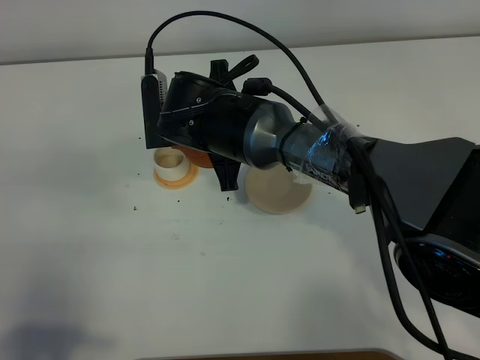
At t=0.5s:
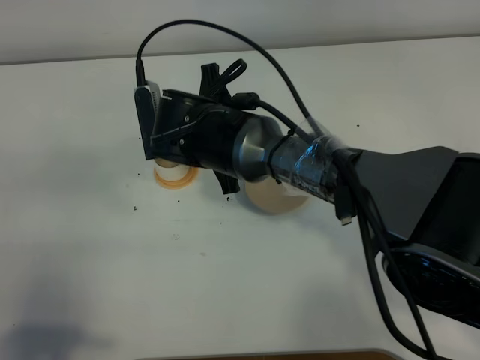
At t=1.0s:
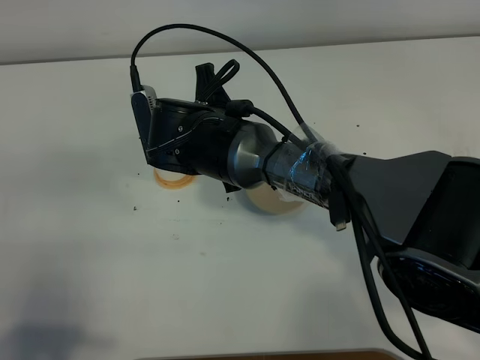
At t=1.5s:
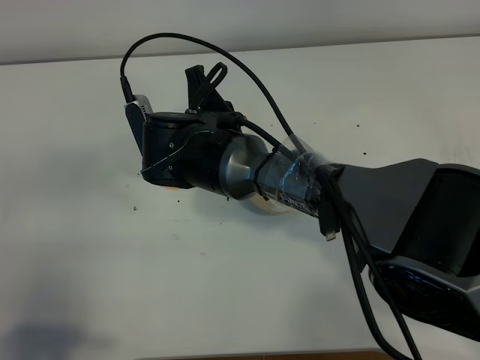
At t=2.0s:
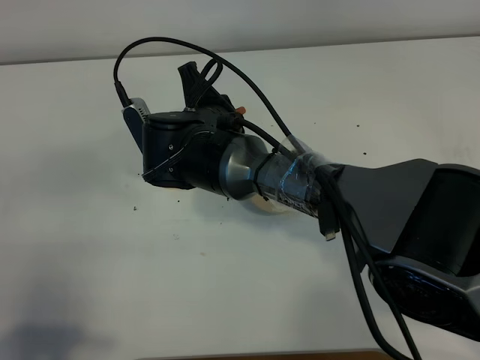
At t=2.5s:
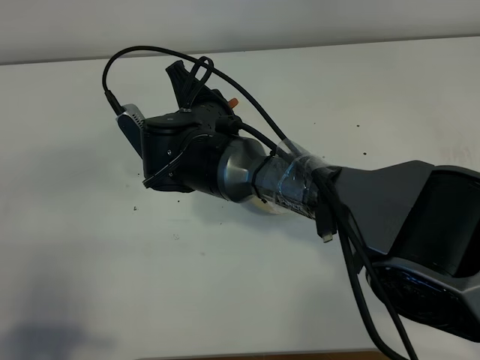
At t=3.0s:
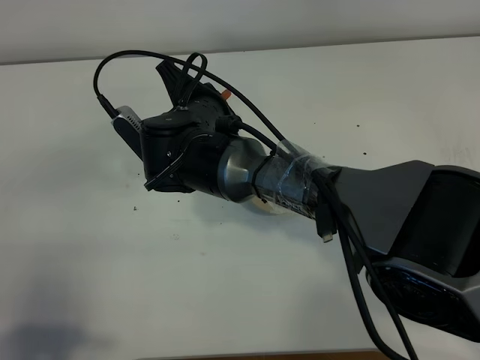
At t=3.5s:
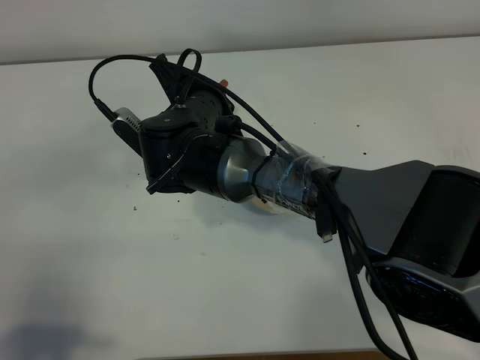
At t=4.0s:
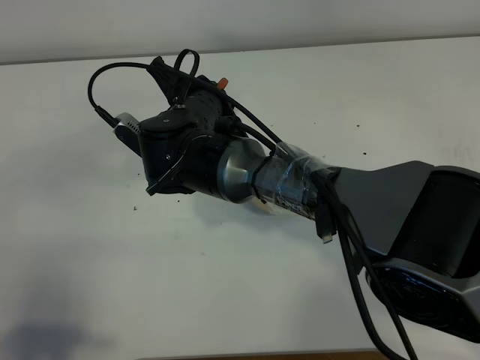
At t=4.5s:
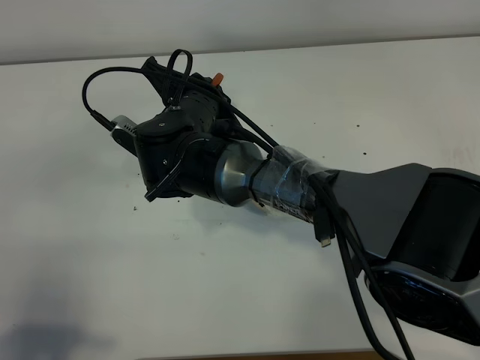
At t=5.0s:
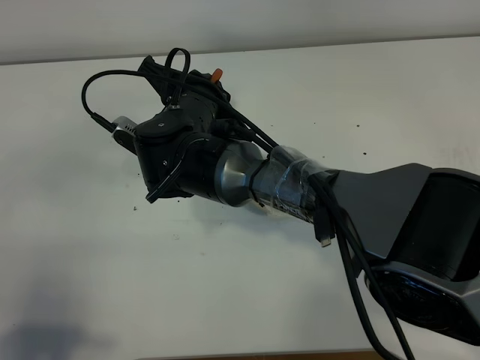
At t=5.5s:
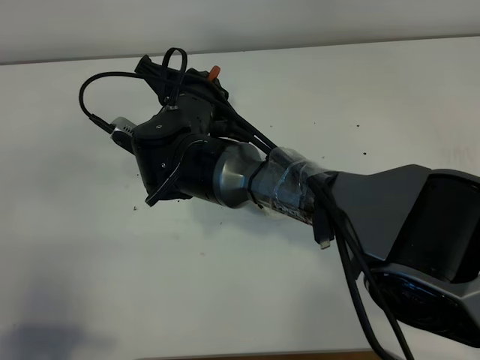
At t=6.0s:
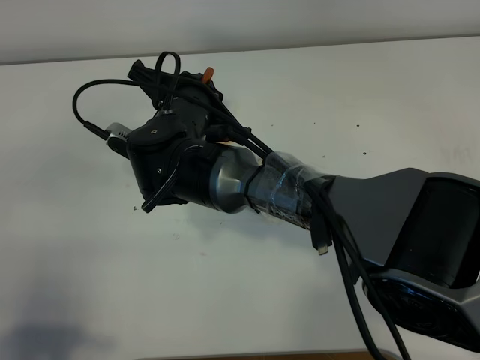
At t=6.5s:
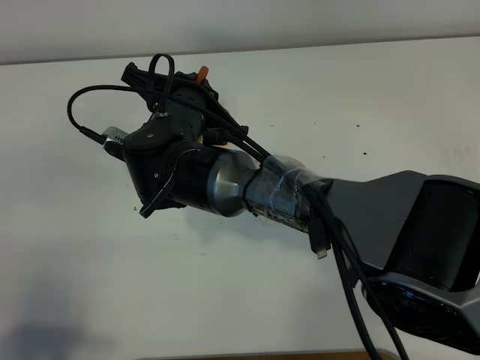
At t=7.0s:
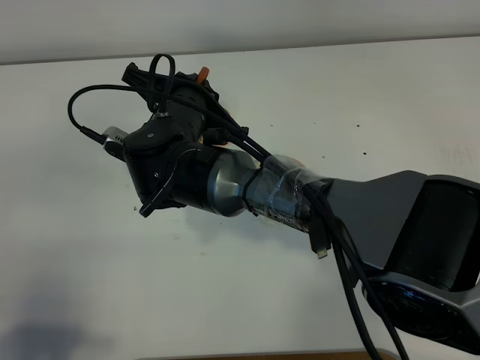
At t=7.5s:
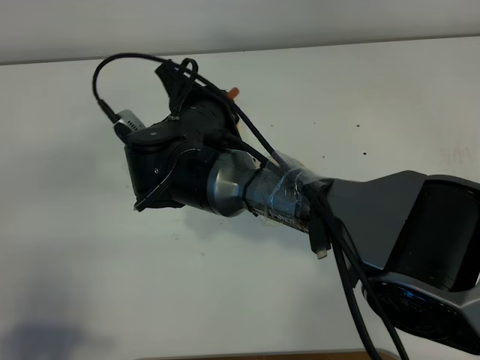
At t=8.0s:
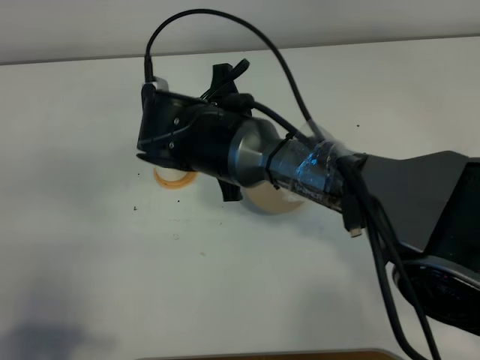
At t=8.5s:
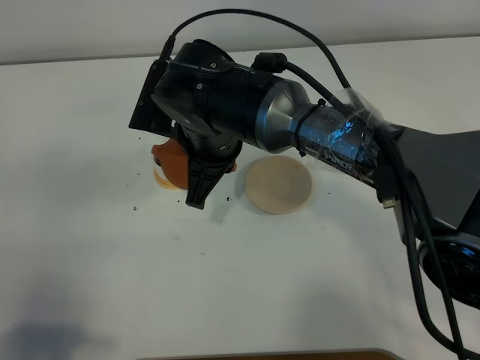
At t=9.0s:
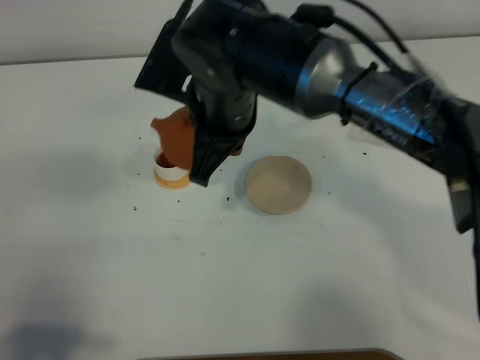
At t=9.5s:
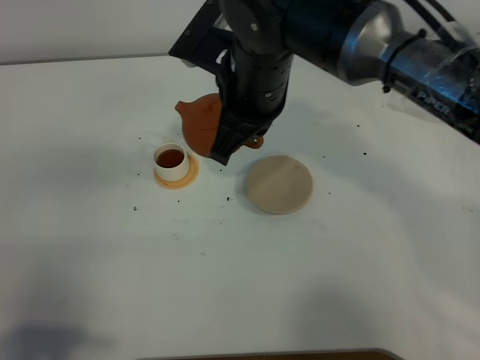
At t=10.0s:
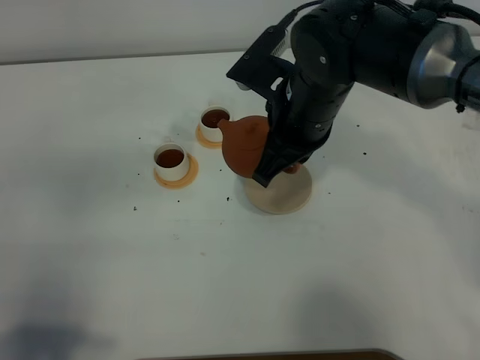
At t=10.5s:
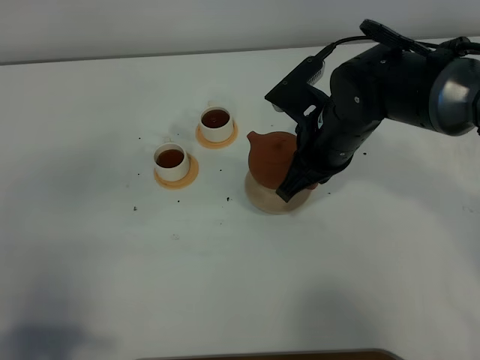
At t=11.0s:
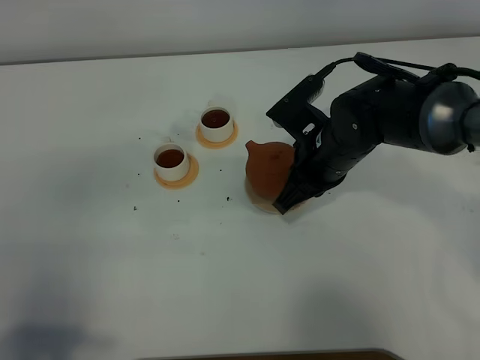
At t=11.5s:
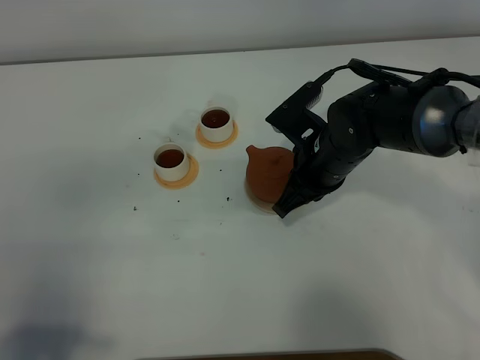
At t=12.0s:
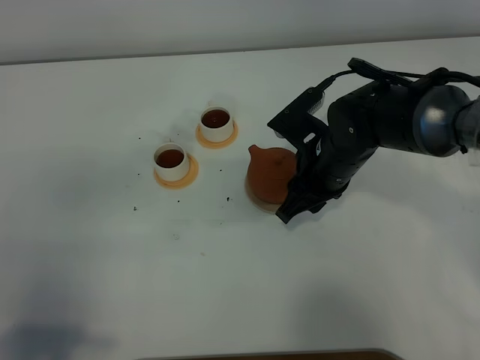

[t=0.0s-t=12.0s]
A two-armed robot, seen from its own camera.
Task of the whole recording: grasp the brown teapot and pour the tea into the two white teacups one by one, put the brown teapot back in its original place.
Step, t=0.0s to t=8.5s: Pour tea into the teacup with the right gripper.
t=4.0s to t=6.0s: The grippers move only a little.
t=8.0s to t=10.0s: The right gripper shifts approximately 10 cm to the right.
t=10.0s to t=12.0s: The right gripper goes approximately 10 cm downward, and opens.

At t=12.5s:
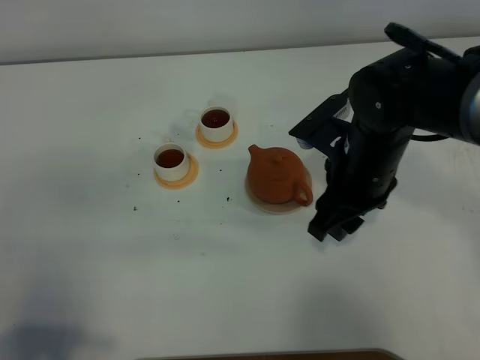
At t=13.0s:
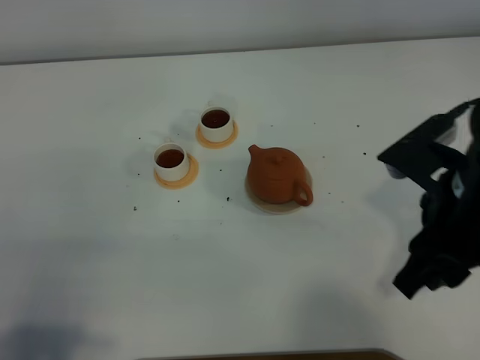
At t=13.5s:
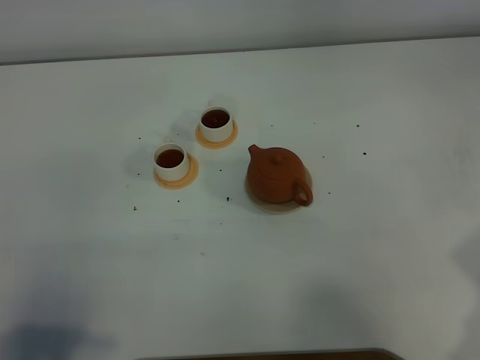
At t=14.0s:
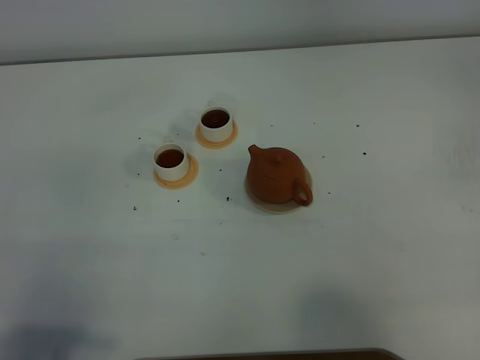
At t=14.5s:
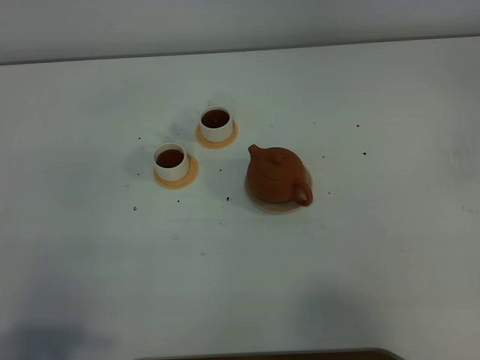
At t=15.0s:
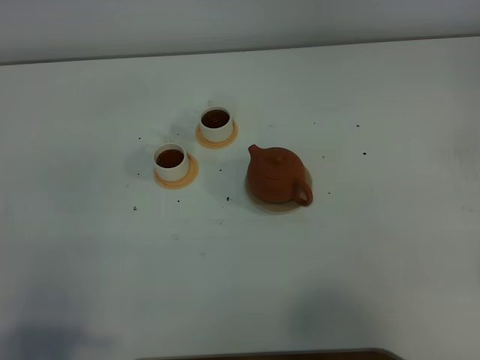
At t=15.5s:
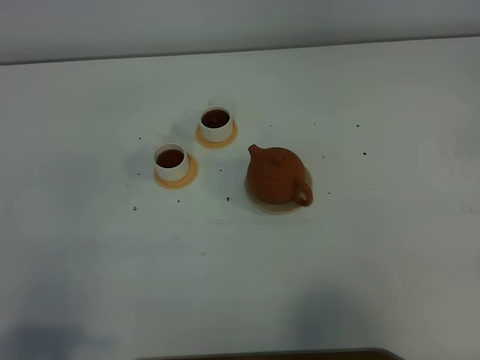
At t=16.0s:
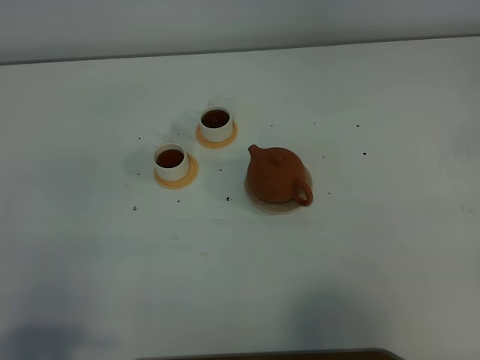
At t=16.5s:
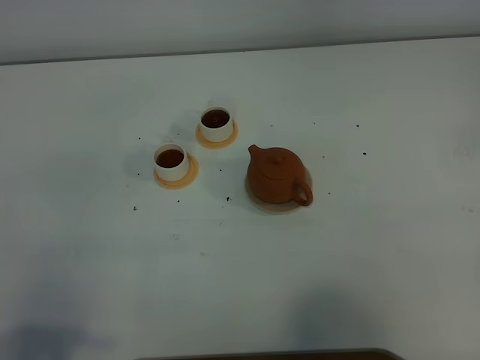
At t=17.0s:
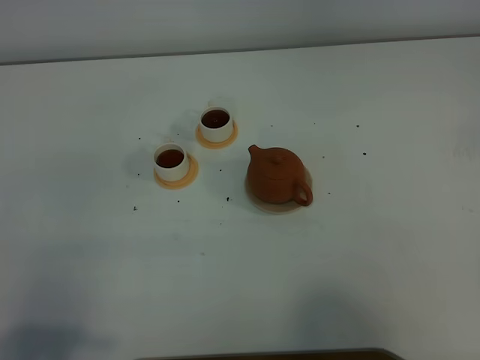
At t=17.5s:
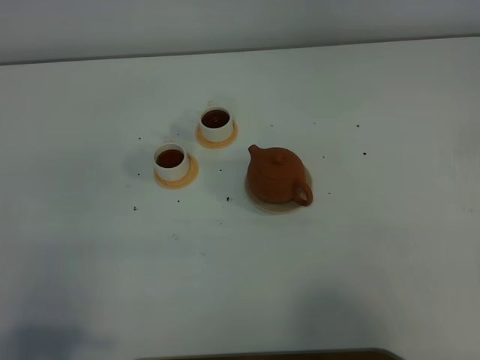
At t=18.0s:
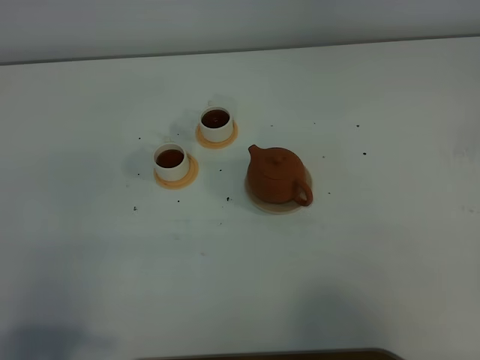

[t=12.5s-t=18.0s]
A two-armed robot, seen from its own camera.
Task of the whole recording: grasp the brown teapot and pour the tea into the two white teacups one by one, put the brown teapot back in its original place.
t=12.5s to t=14.5s: The right gripper moves to the right and backward, roughly 30 cm.

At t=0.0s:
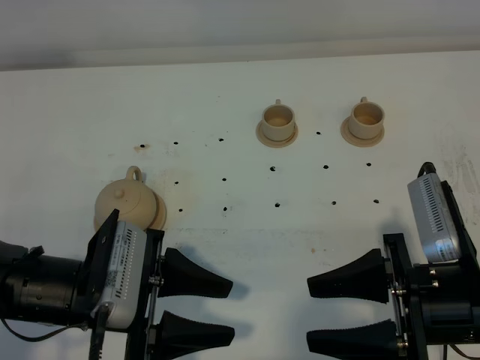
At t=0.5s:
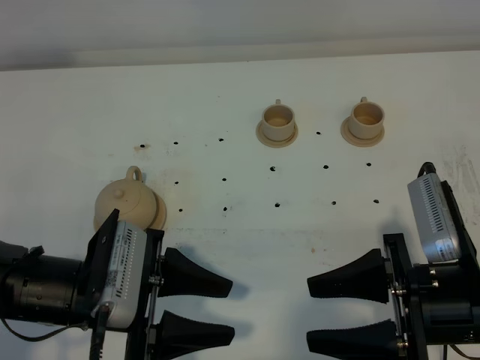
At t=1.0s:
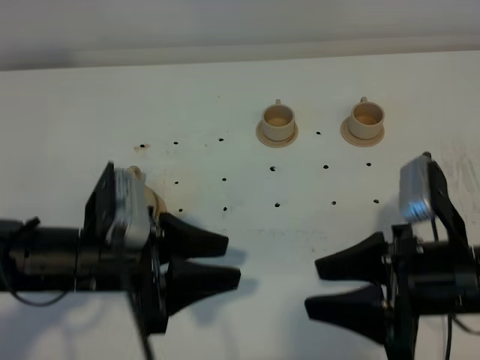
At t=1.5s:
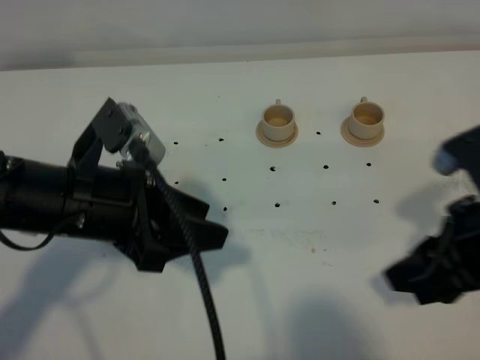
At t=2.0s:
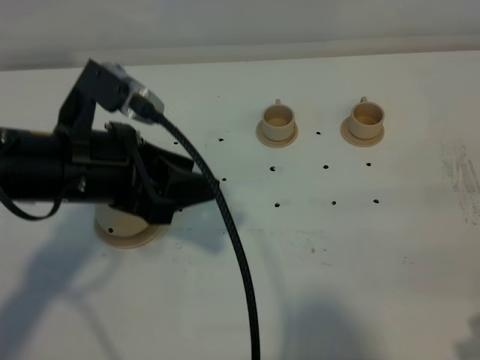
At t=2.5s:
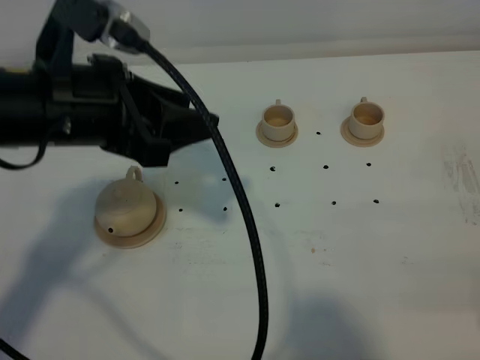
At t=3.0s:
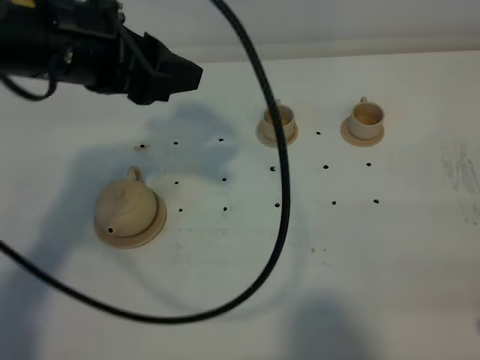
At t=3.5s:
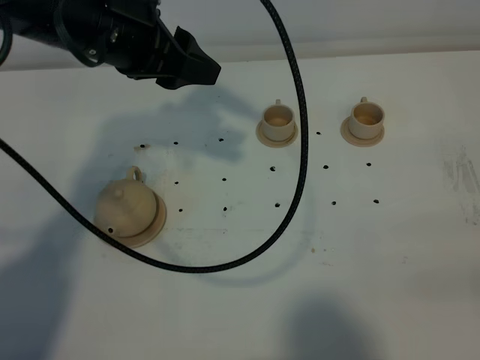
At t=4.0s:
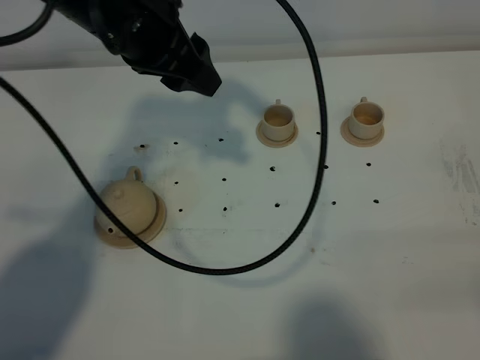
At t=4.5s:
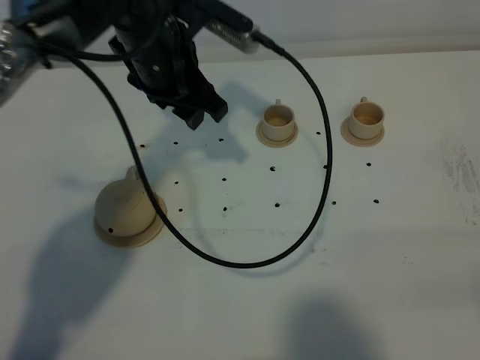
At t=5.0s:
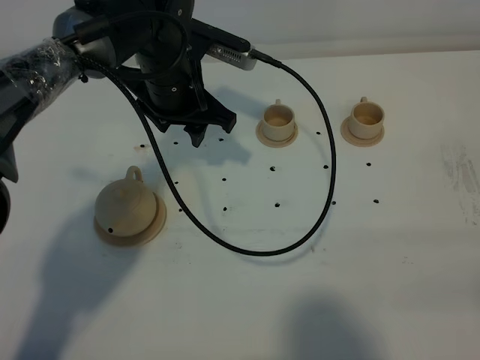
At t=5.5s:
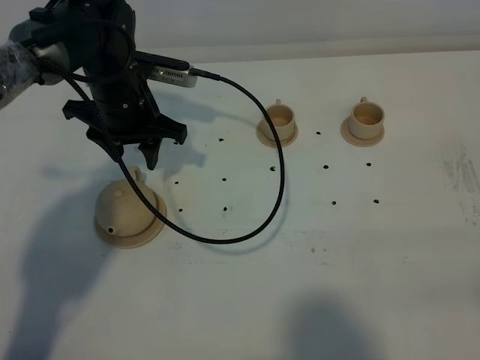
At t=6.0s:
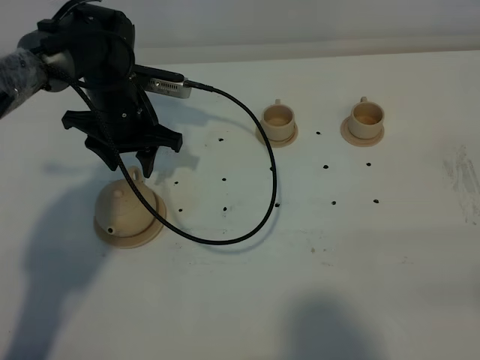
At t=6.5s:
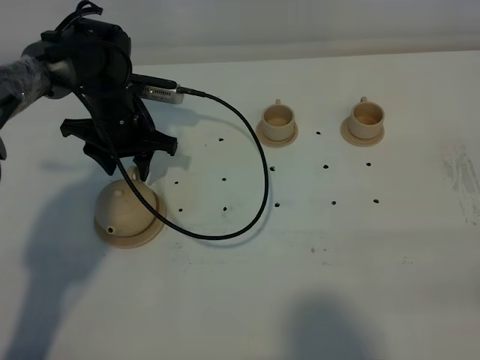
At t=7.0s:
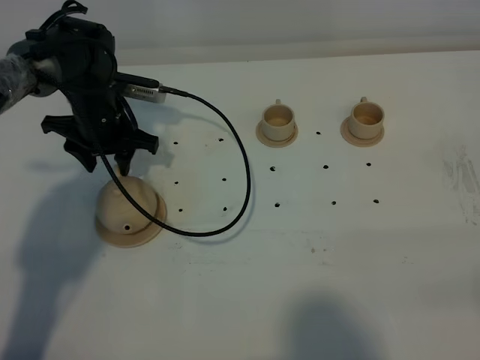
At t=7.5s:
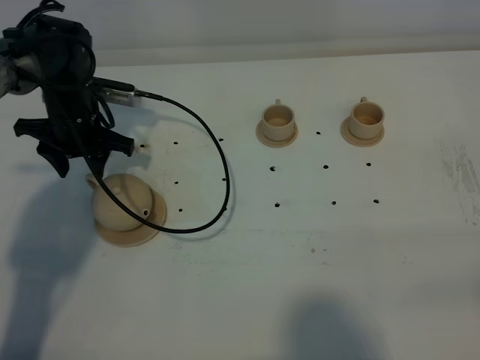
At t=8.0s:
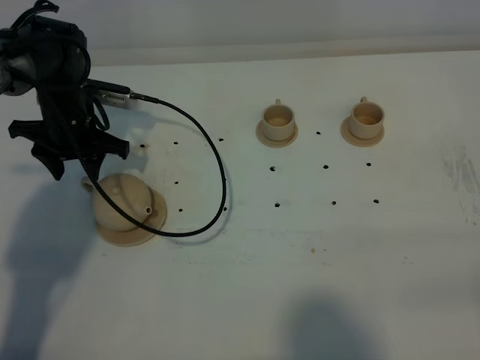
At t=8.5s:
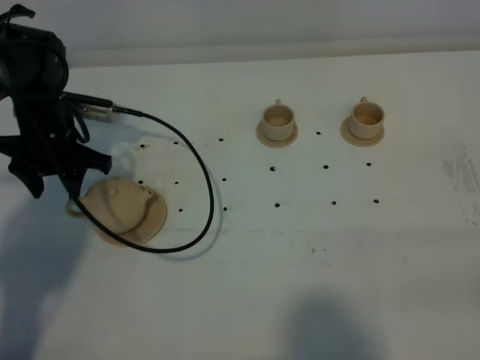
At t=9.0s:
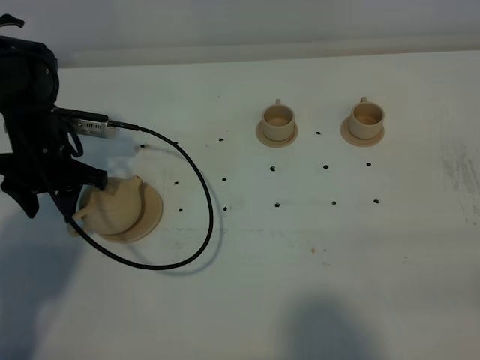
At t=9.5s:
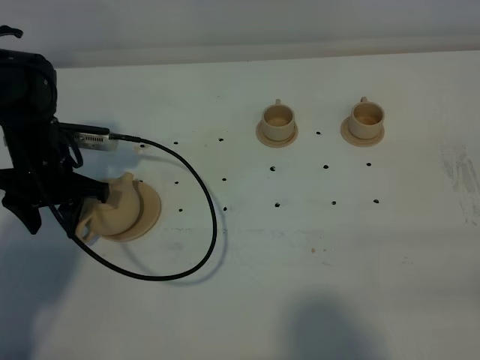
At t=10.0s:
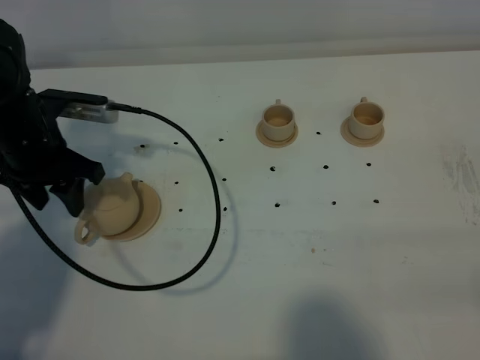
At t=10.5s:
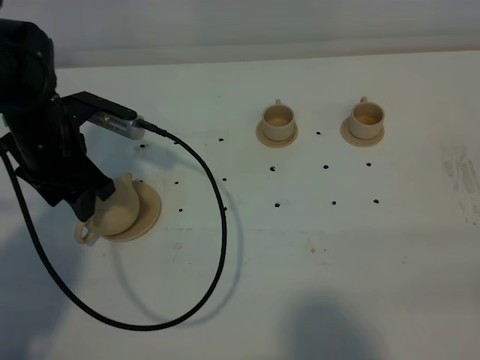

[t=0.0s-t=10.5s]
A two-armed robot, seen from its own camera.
Task of the whole recording: grasp the brown teapot and pour the tea into the two brown teacups one by one, put the brown teapot back in its original place.
t=0.0s to t=2.0s: The right gripper goes some 15 cm to the right, backward and upward, and closes its fingers; the left gripper heads upward and forward, covering some 15 cm.
t=2.0s to t=4.0s: The right gripper travels backward by about 10 cm, while the left gripper is displaced forward, upward and to the right by about 15 cm.
t=4.0s to t=6.5s: The left gripper moves downward and forward, approximately 20 cm.
t=6.5s to t=8.5s: The left gripper goes roughly 10 cm to the left.
t=8.5s to t=10.5s: The left gripper heads backward and upward, covering some 10 cm.
